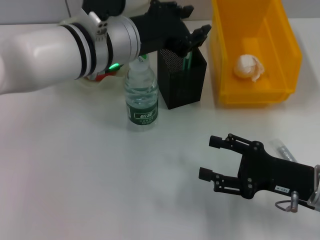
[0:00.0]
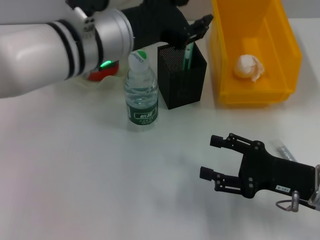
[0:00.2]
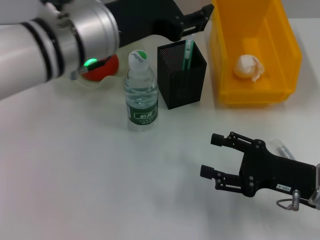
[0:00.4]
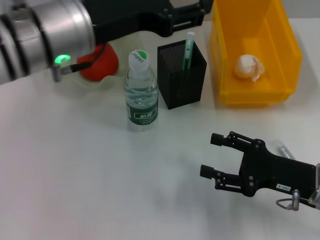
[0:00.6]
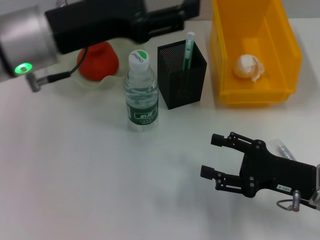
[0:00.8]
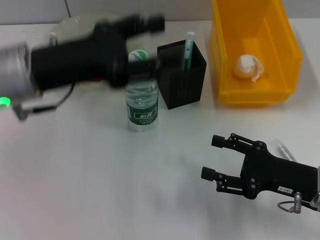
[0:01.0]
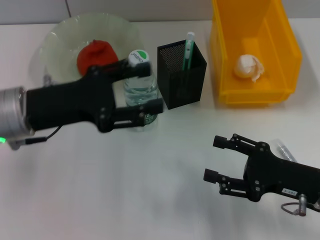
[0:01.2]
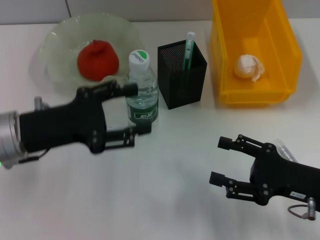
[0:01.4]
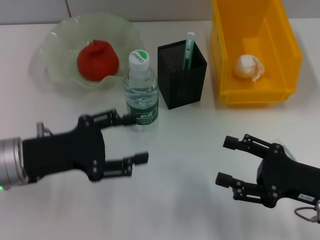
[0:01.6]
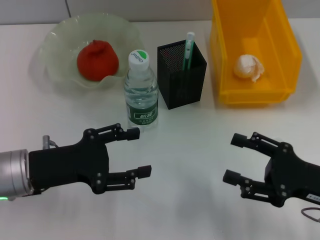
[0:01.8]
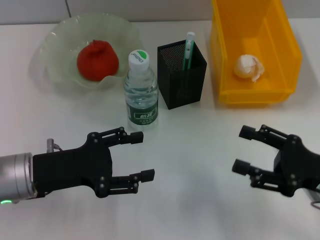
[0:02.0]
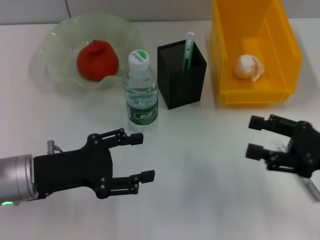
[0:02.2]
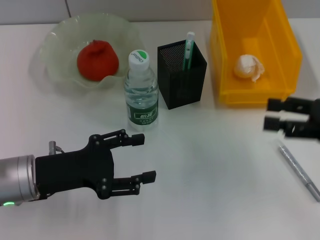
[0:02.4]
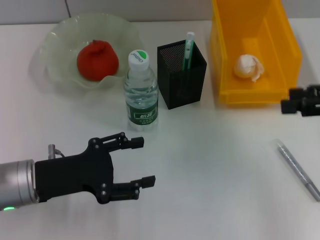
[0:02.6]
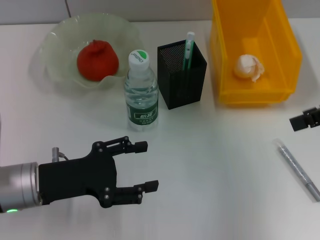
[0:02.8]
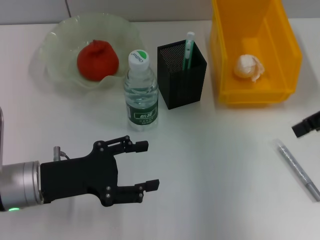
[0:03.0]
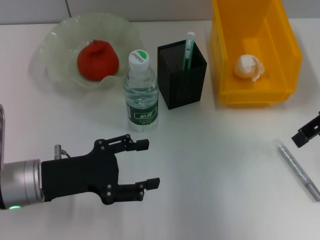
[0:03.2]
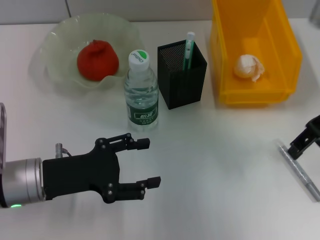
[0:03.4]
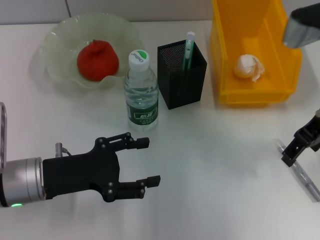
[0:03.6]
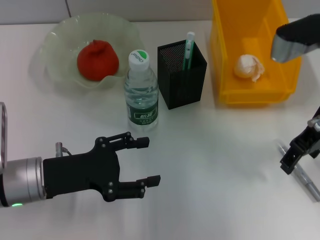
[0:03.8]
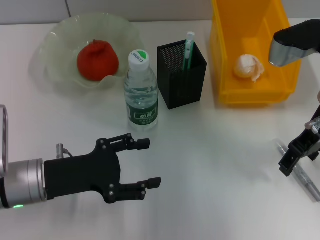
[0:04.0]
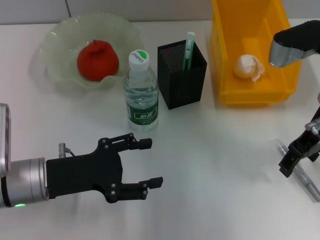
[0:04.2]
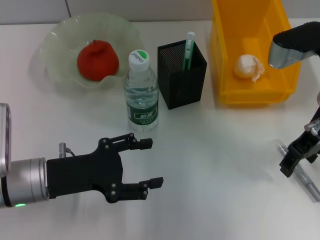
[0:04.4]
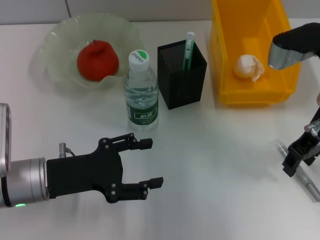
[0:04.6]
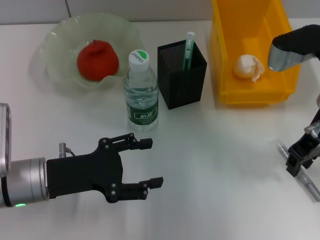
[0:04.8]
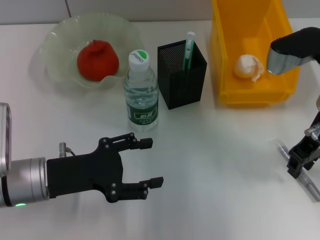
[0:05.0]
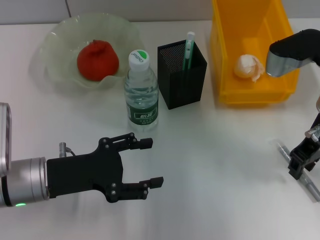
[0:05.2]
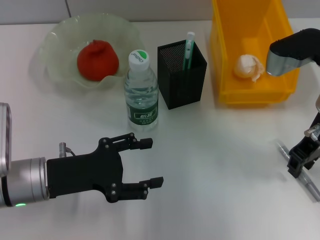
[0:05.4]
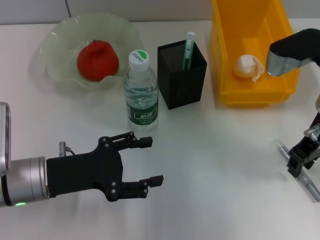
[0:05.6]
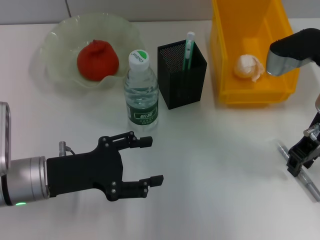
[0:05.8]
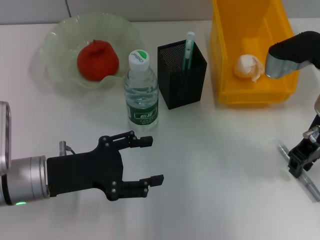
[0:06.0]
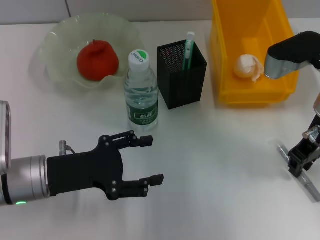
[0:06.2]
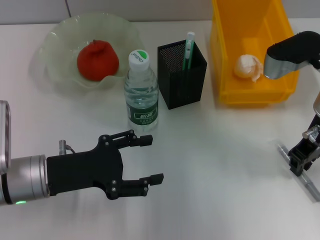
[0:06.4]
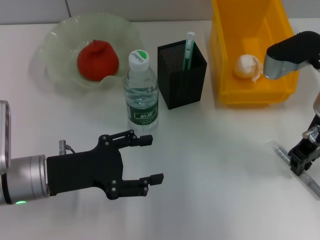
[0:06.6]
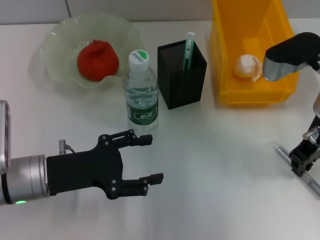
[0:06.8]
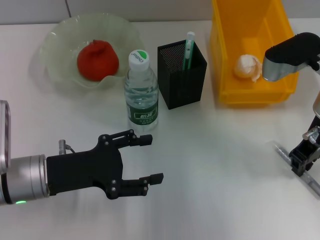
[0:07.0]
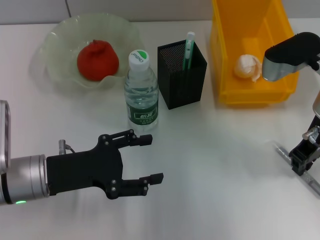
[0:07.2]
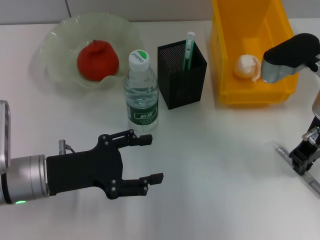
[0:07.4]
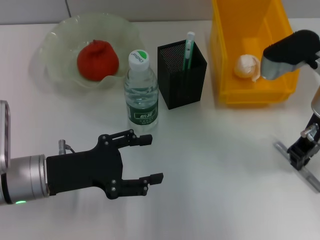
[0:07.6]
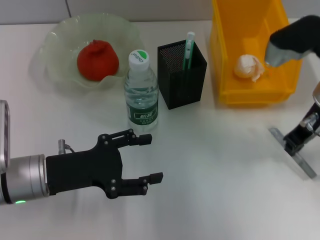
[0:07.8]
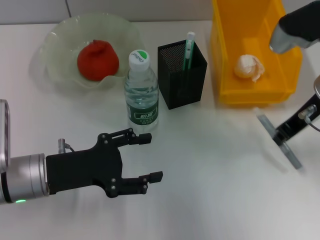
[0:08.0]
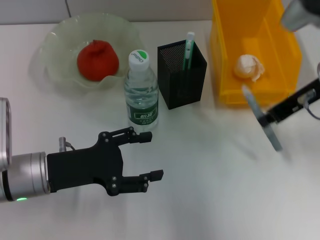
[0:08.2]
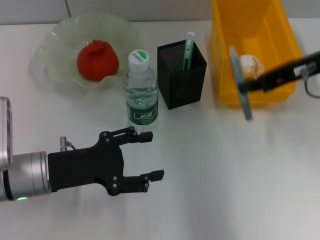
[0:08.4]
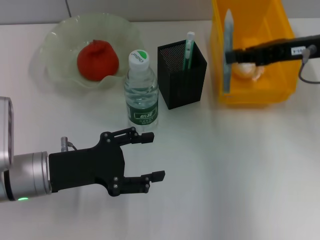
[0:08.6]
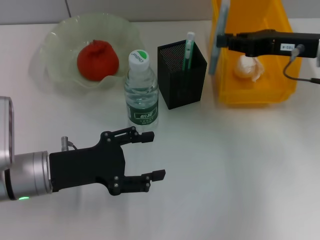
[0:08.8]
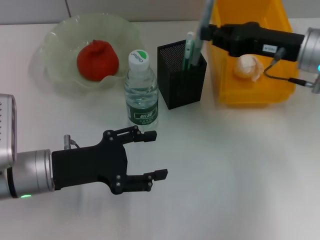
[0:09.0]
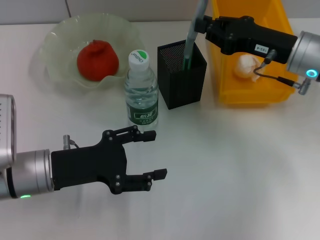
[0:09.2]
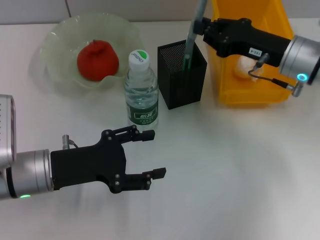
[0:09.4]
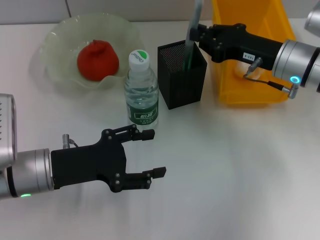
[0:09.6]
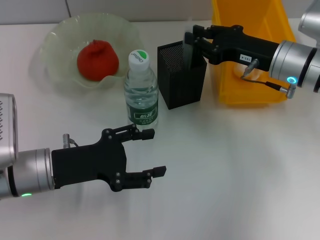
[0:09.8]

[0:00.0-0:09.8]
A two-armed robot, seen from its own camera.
Step, 0:00.0 to 0:07.4: Grab the gray glue with the right hand.
0:00.0 to 0:01.4: The left gripper heads to the left, backward and downward, covering approximately 15 cm, and opens.
0:01.4 to 0:02.8: The right gripper moves upward and forward, approximately 20 cm. The left gripper travels downward by approximately 5 cm.
0:02.8 to 0:04.2: The right gripper moves to the left and downward, approximately 10 cm.
0:04.2 to 0:05.6: The right gripper closes its fingers.
0:05.6 to 0:07.0: The two grippers keep their place.
0:07.0 to 0:08.4: The right gripper heads upward, covering about 5 cm.
0:08.4 to 0:09.8: The right gripper is displaced downward by some 10 cm.

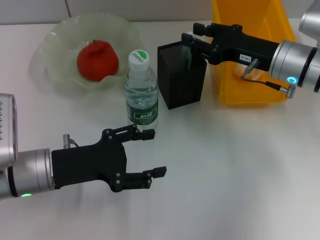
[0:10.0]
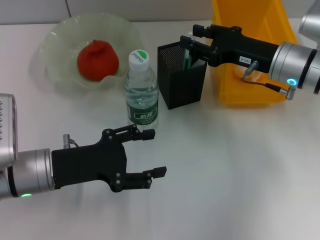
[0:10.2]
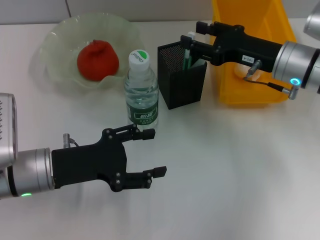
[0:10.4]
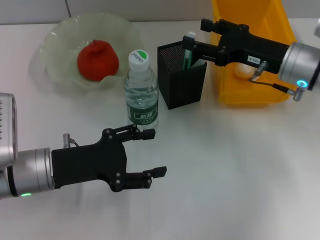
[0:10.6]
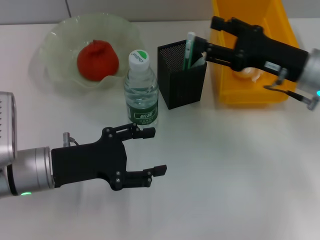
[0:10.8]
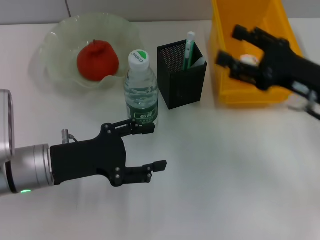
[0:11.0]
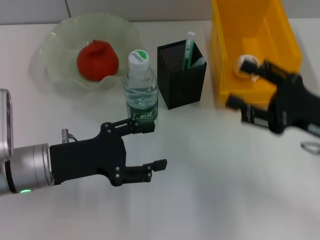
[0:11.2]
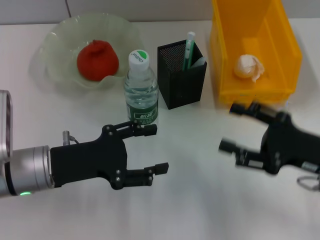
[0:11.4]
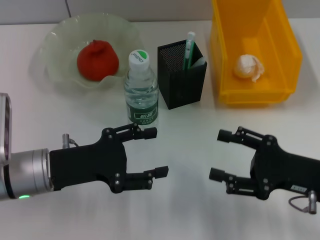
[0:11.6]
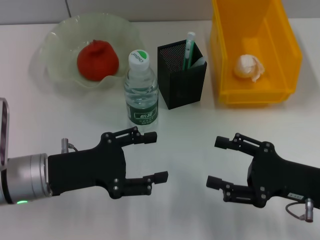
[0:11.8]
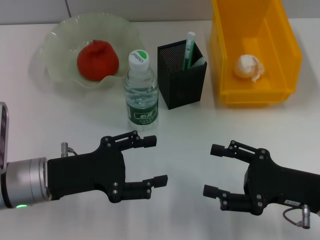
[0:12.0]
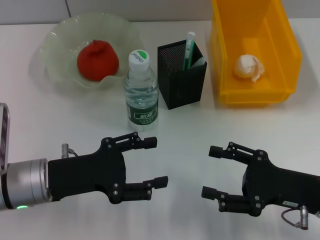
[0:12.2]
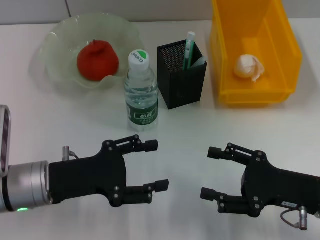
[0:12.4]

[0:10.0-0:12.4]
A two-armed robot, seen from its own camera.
0:10.0 to 0:11.2: The right gripper shifts roughly 15 cm backward and to the right, and opens up.
0:11.2 to 0:12.4: The right gripper changes place by some 5 cm.

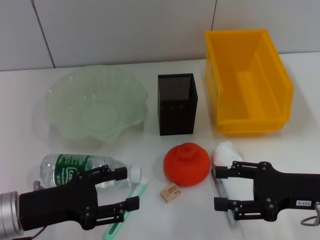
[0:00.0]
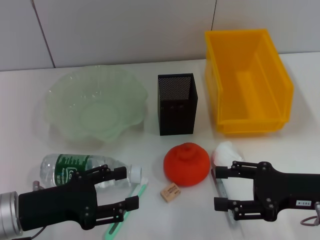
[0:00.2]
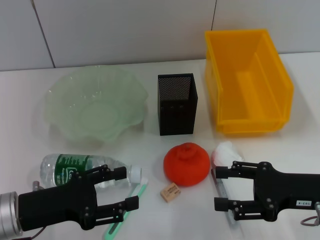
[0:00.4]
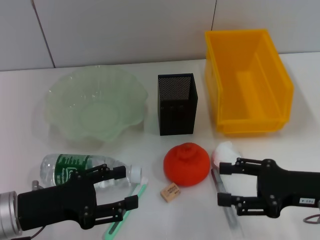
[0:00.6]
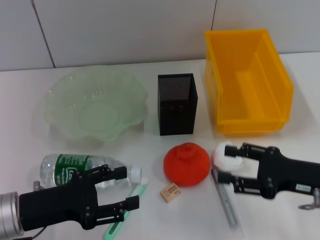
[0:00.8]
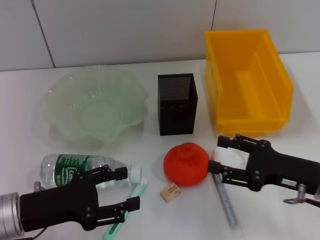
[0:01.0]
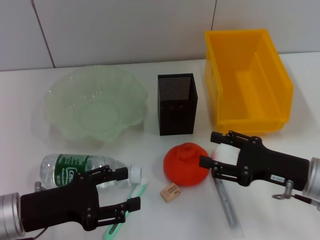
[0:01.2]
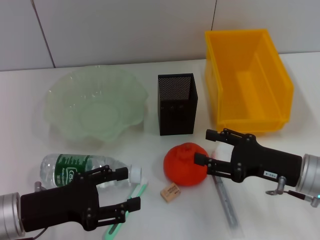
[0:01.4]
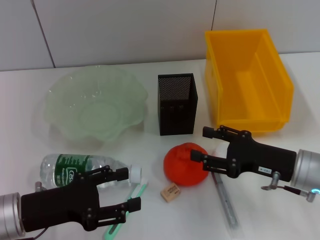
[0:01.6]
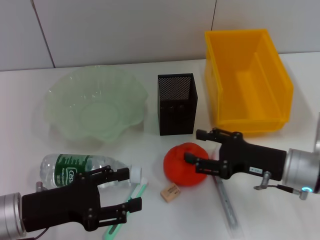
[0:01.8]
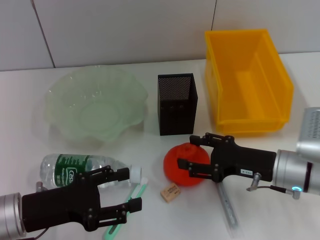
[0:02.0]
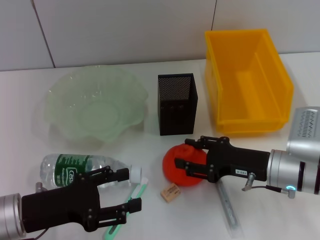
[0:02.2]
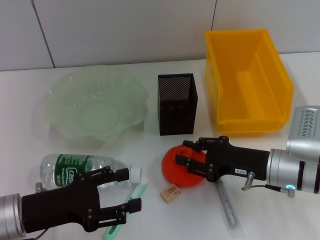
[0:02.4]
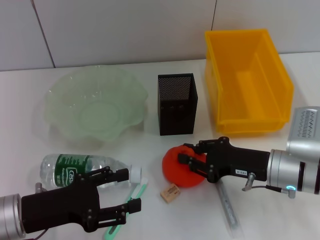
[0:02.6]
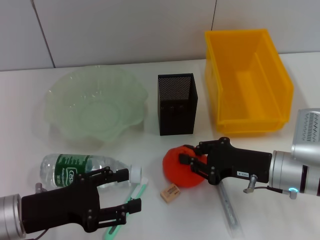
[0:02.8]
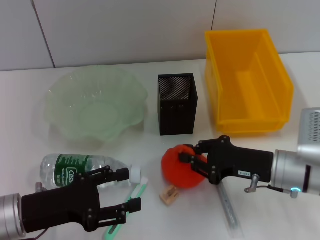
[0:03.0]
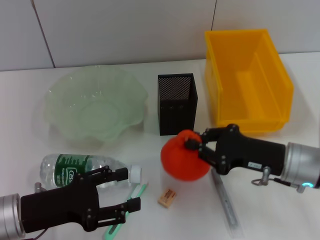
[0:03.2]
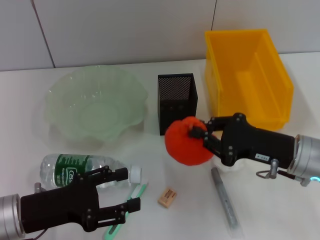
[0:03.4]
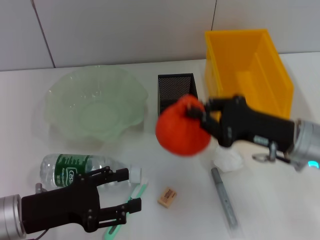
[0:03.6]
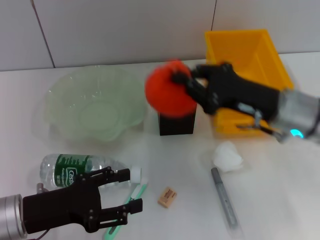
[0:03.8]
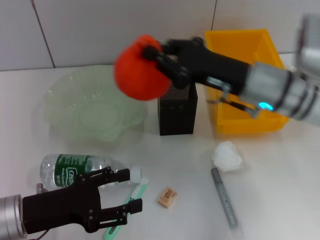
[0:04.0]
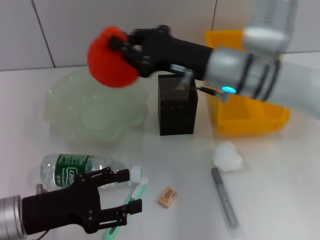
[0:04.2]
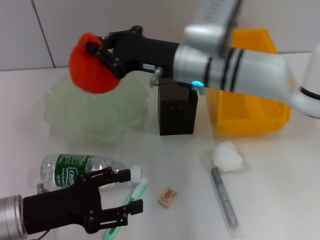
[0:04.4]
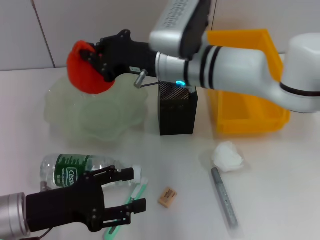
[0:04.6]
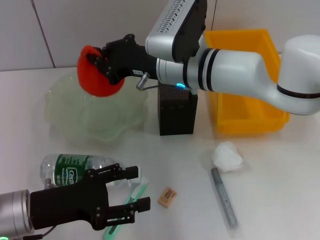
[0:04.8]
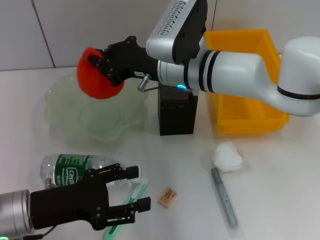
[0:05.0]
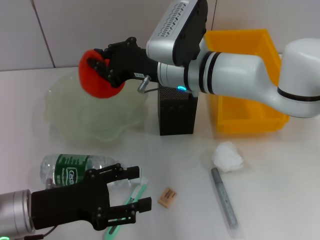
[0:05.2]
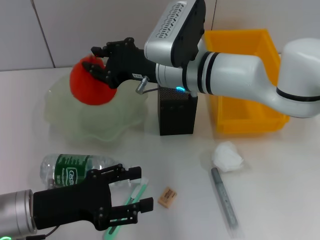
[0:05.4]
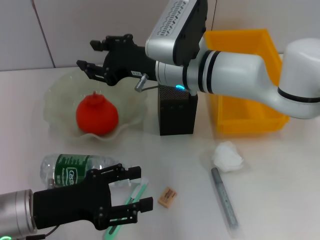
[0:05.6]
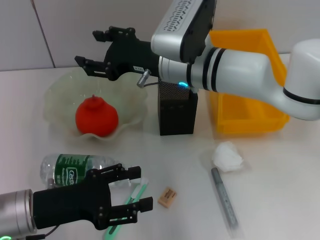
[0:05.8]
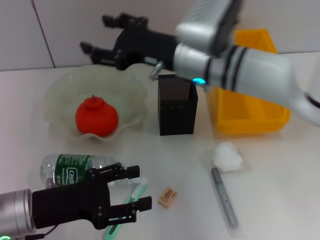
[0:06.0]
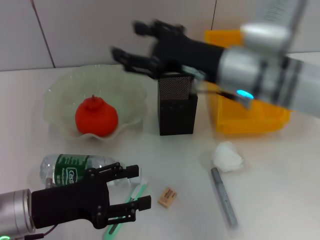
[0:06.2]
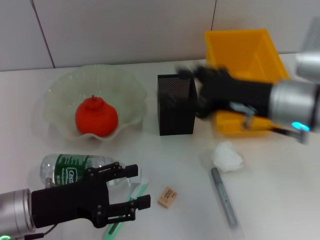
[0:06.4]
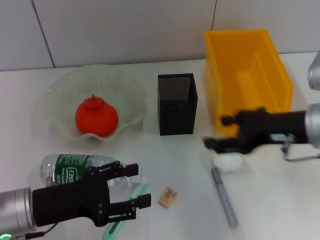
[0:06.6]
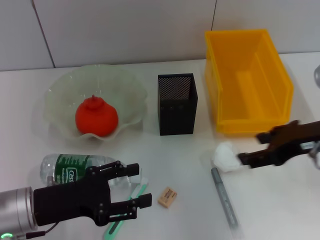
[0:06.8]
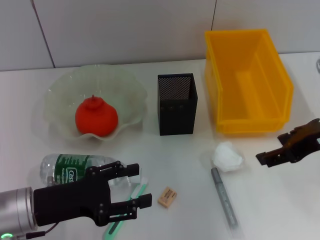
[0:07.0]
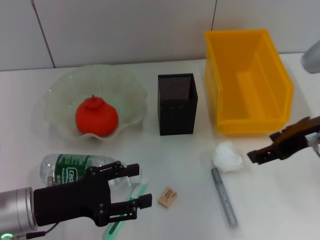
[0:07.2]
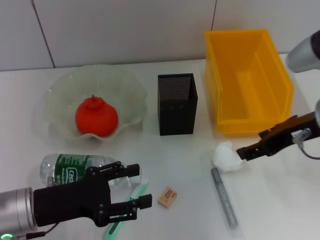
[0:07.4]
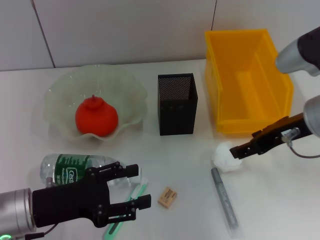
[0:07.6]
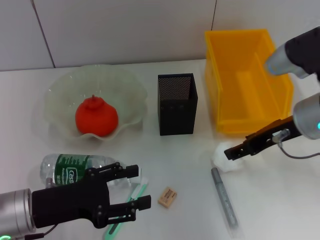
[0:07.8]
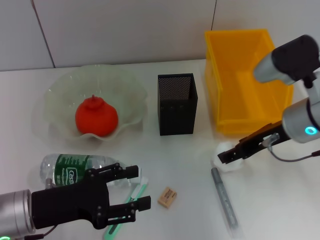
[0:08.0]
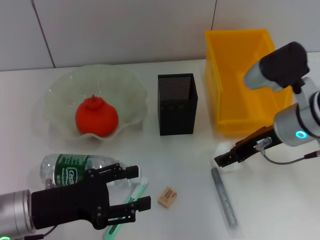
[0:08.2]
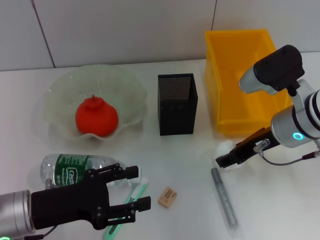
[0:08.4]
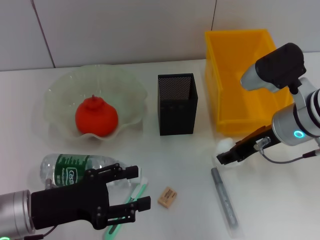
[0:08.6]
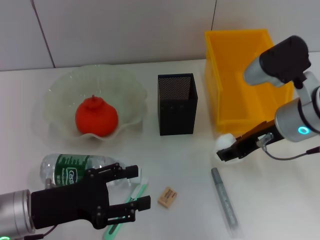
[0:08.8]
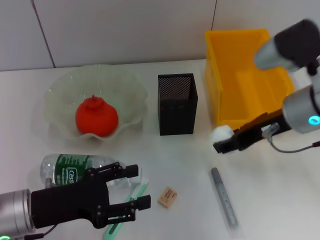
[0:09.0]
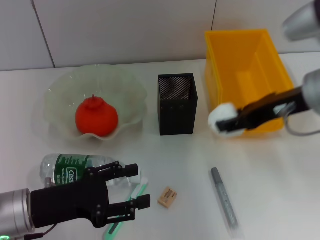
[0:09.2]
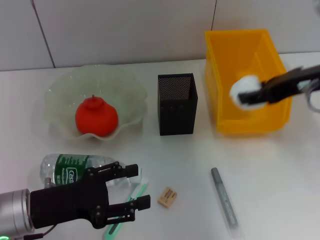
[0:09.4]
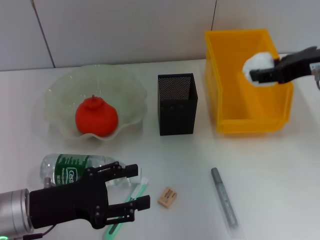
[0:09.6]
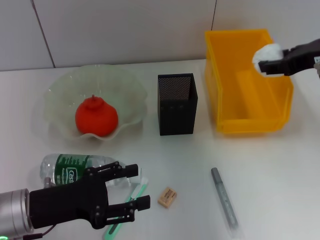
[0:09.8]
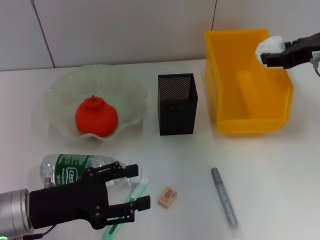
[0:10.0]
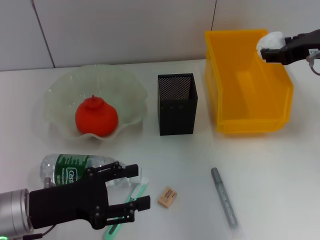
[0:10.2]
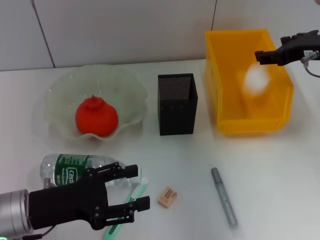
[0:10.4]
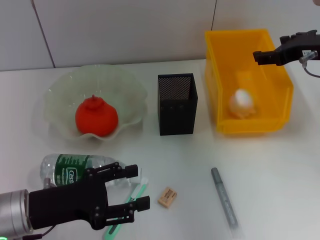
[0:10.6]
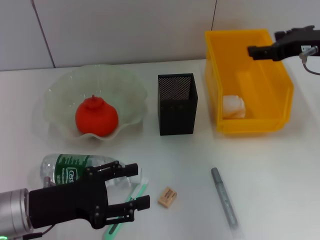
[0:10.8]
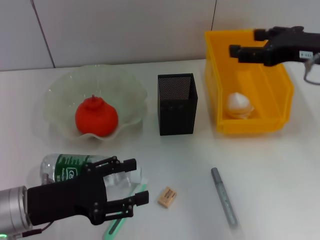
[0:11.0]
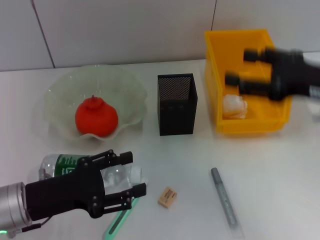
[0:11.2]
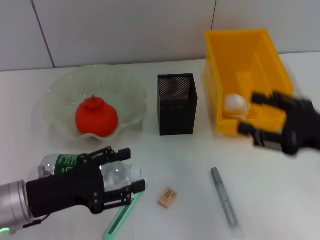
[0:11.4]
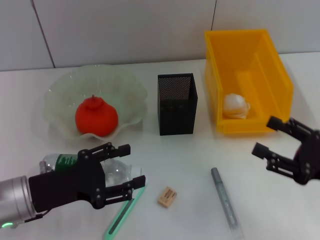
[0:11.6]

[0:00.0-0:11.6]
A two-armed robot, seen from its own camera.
Step, 0:05.8 to 0:08.4: Grab the paper ball with the right hand.
Step, 0:08.6 to 0:10.6: Place the paper ball into the trash can with the right hand.
0:00.0 to 0:01.4: The grippers move only a little.
0:01.4 to 0:02.8: The right gripper closes.
0:02.8 to 0:04.4: The right gripper goes about 20 cm to the left, upward and forward.
0:04.4 to 0:05.8: The right gripper opens its fingers.
0:05.8 to 0:07.2: The right gripper is displaced to the right and backward by some 20 cm.
0:07.2 to 0:08.8: The right gripper travels downward by approximately 5 cm.
0:08.8 to 0:10.2: The right gripper is displaced to the right and upward by about 10 cm.
0:10.2 to 0:11.6: The right gripper moves backward and downward, some 20 cm.
